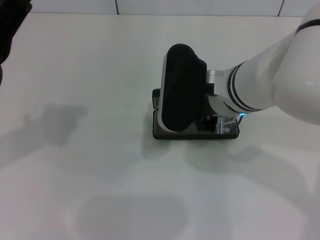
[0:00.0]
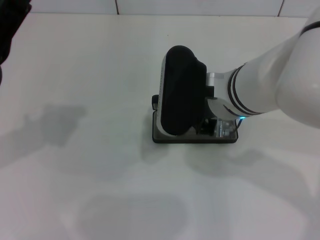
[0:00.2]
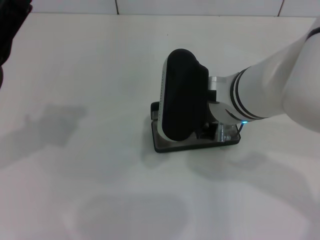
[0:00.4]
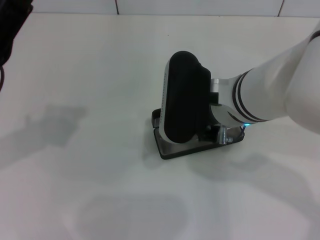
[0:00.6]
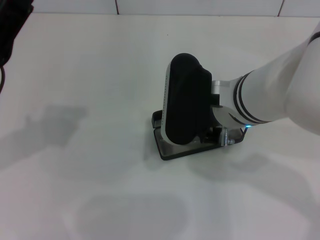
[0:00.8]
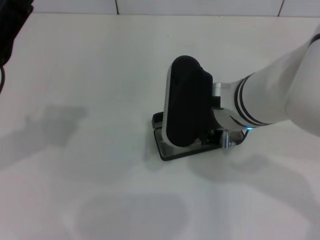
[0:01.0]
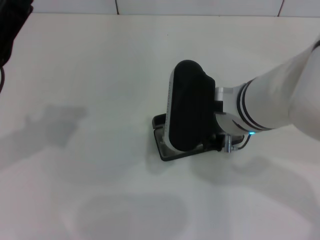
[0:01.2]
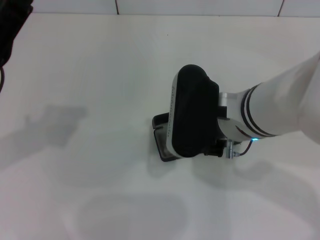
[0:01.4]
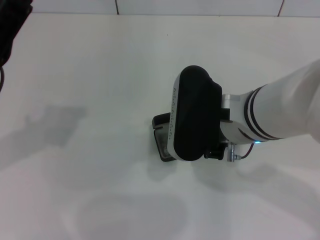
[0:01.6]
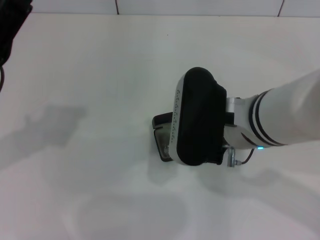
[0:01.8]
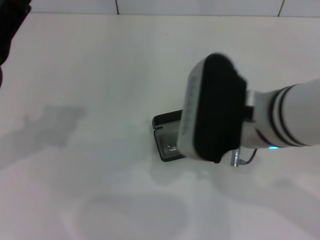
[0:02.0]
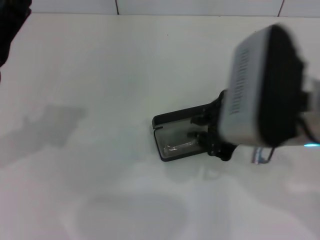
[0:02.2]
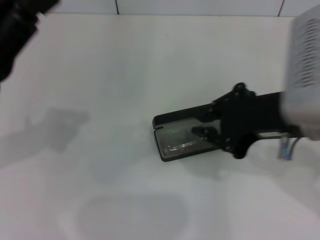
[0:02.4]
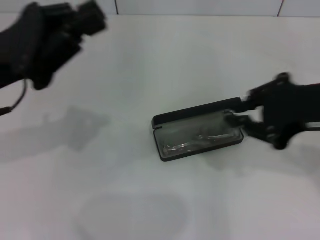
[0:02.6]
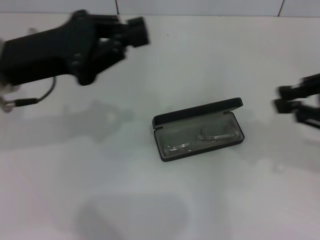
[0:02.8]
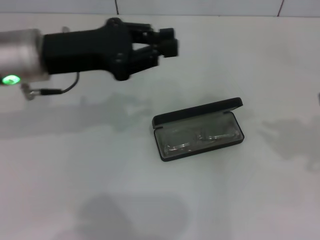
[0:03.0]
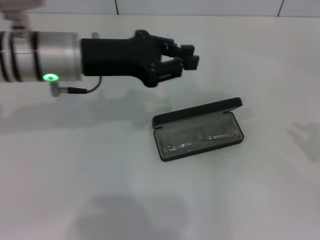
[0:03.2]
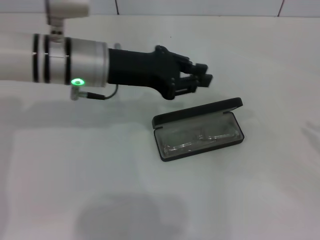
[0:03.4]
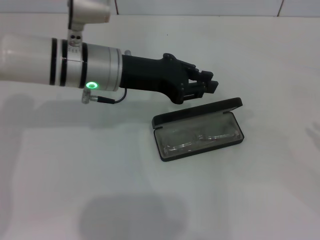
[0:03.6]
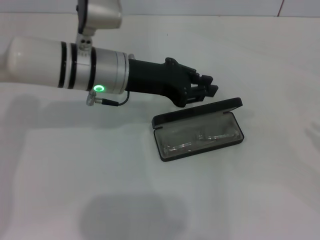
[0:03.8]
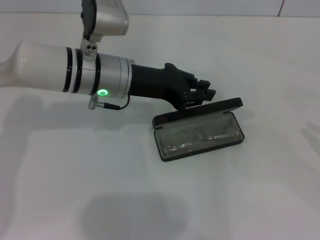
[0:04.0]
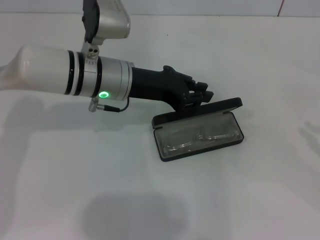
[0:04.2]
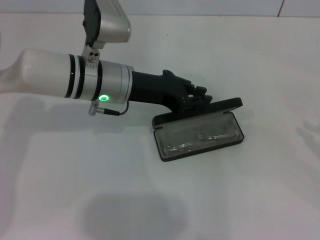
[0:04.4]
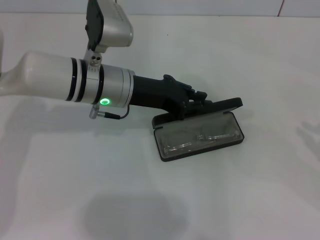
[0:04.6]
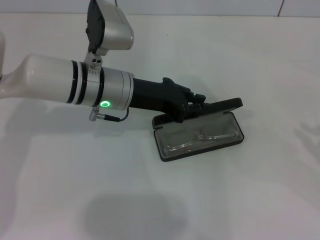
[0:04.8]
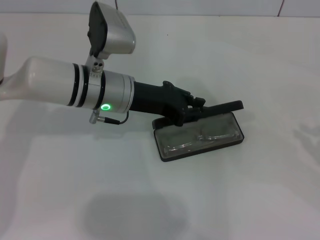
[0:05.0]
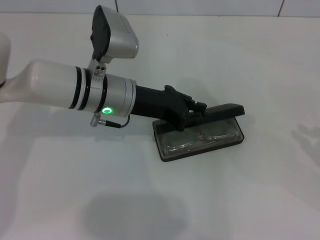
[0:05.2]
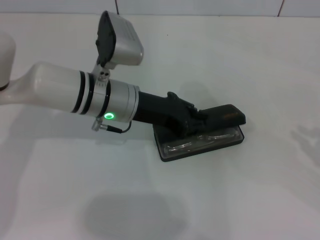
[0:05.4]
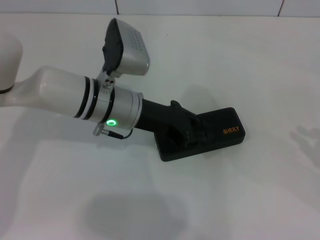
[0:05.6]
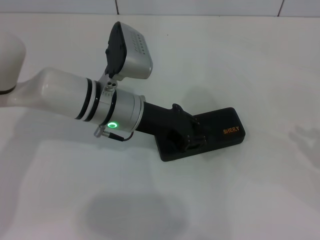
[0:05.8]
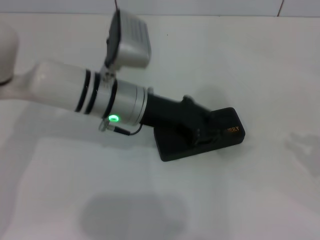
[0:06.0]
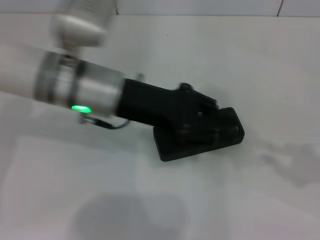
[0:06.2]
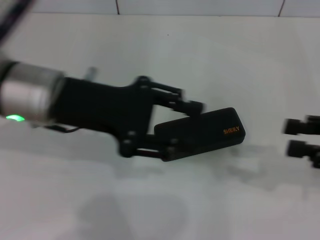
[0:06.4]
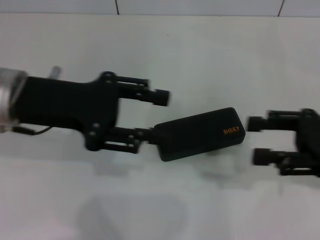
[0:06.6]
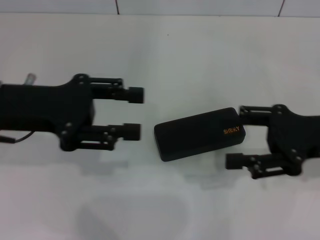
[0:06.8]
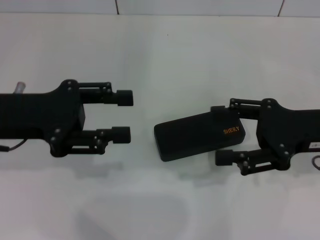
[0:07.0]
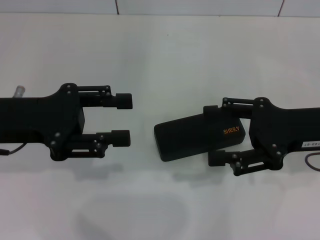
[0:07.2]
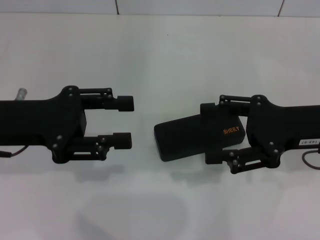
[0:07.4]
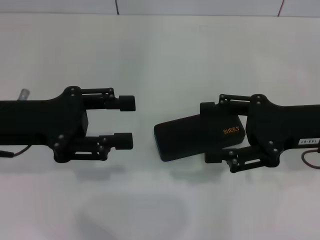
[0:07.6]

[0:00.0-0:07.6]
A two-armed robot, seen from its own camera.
Step, 0:01.8 to 0:05.6: Close the glasses case with your left hand.
0:00.0 to 0:01.6: The grippers make only small movements.
0:01.6 to 0:03.0: The right gripper moves to the right, some 25 cm. The left gripper travels forward and to the right by some 10 cm.
0:03.0 to 0:04.6: The right gripper heads downward and to the right, covering about 10 cm; the left gripper shifts some 10 cm to the right and downward.
0:04.6 to 0:06.0: There are only small adjustments of the grippers.
0:06.0 to 0:07.6: The left gripper heads to the left and backward, covering about 15 cm, and opens; the right gripper is displaced to the left and forward by roughly 20 cm, and opens its fingers.
